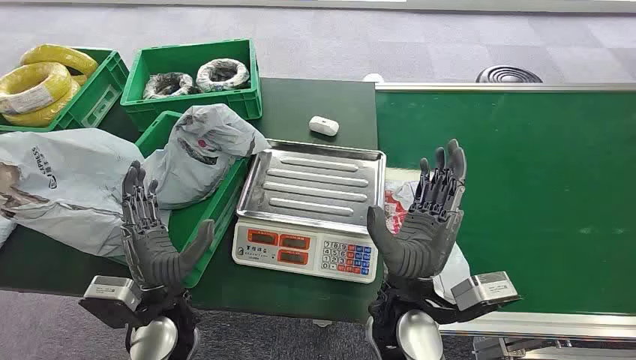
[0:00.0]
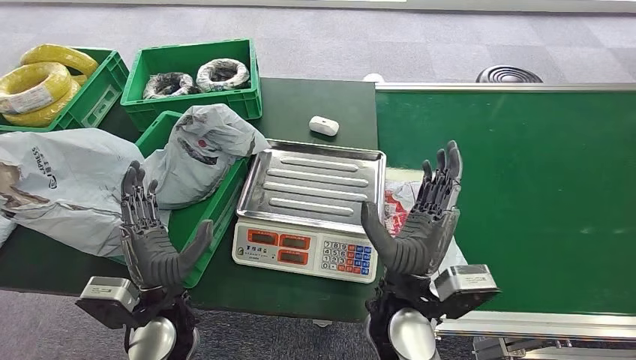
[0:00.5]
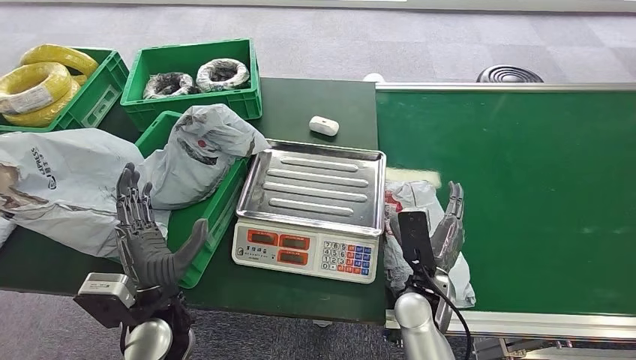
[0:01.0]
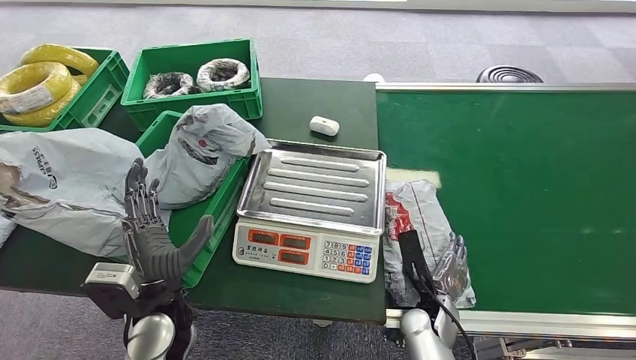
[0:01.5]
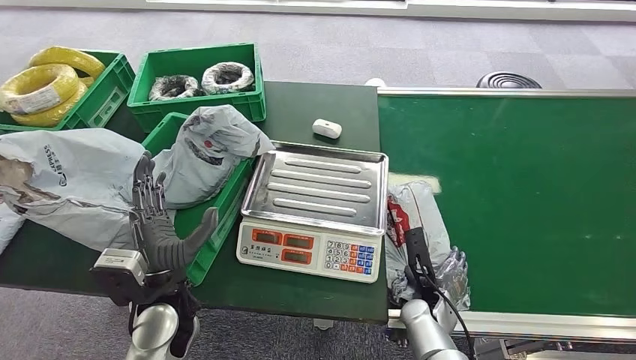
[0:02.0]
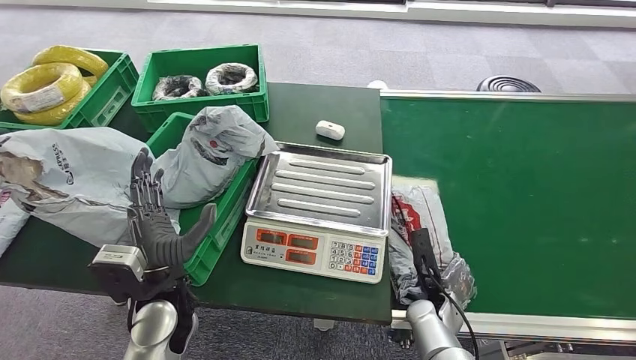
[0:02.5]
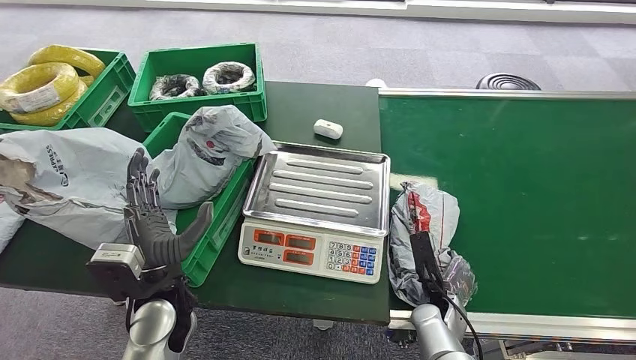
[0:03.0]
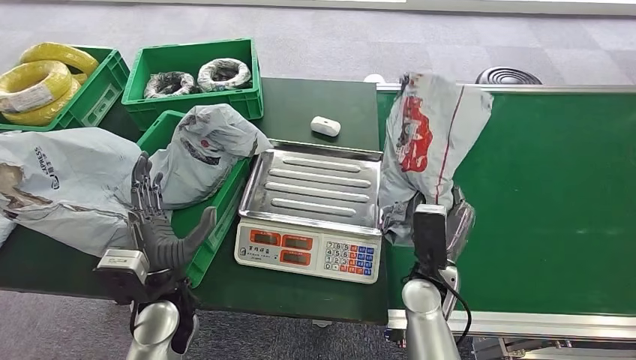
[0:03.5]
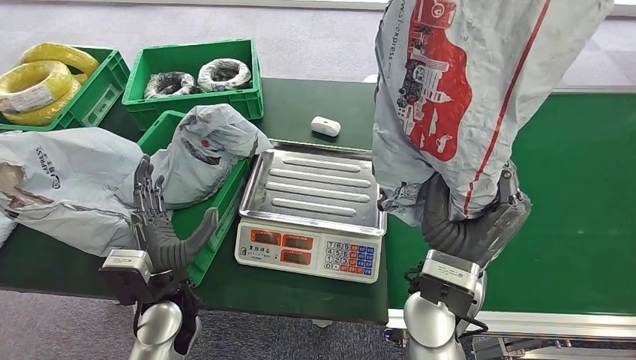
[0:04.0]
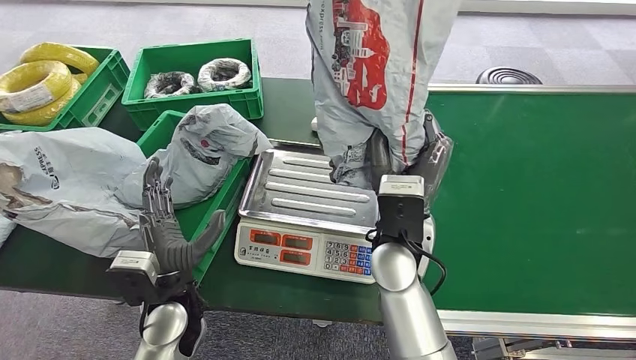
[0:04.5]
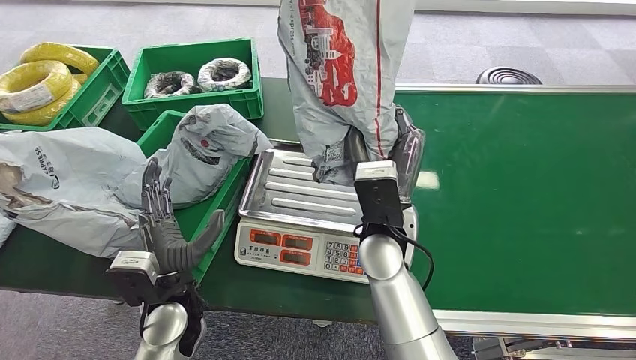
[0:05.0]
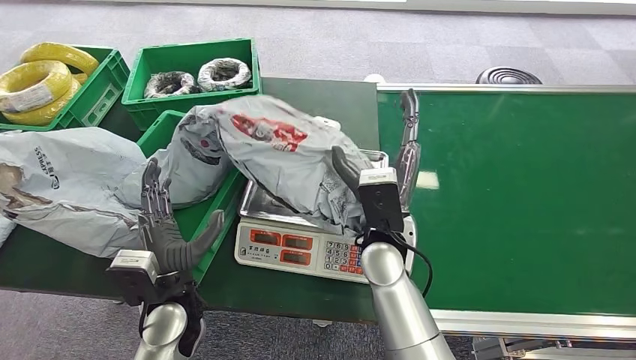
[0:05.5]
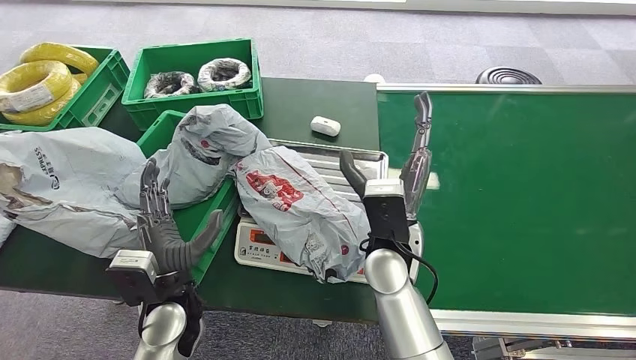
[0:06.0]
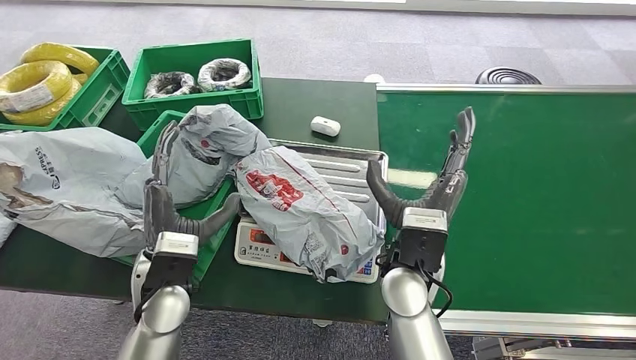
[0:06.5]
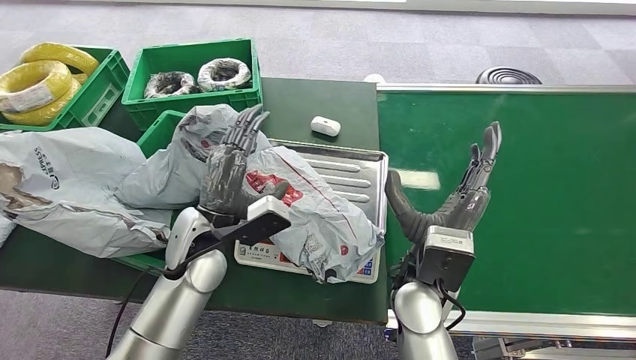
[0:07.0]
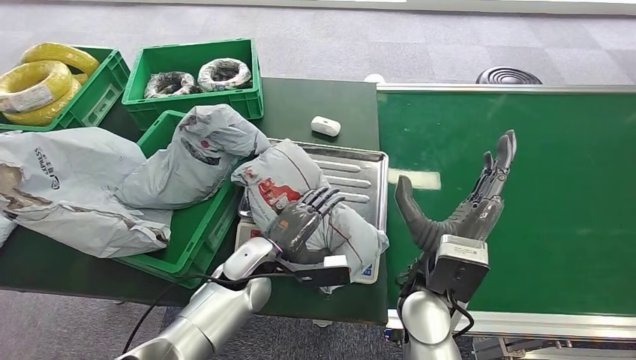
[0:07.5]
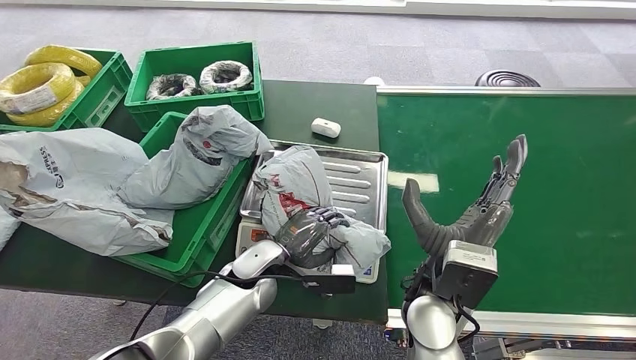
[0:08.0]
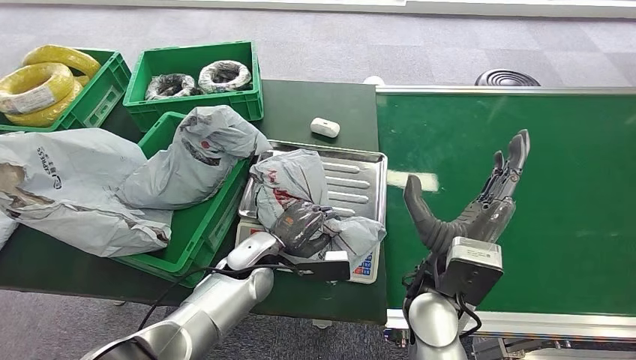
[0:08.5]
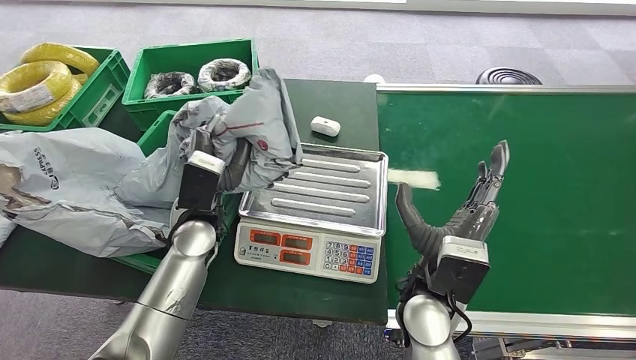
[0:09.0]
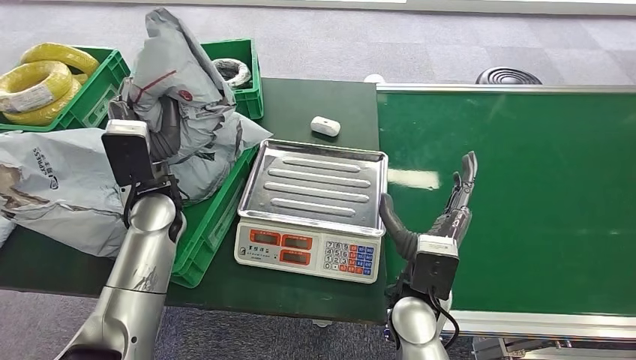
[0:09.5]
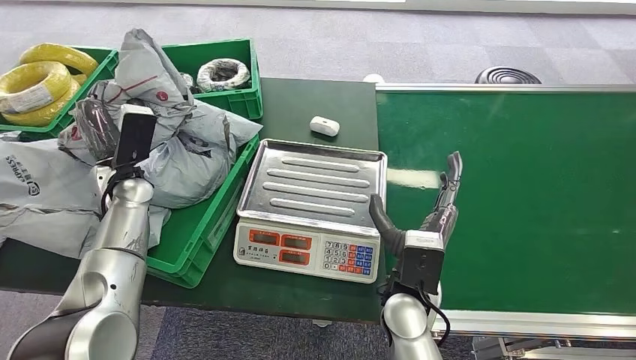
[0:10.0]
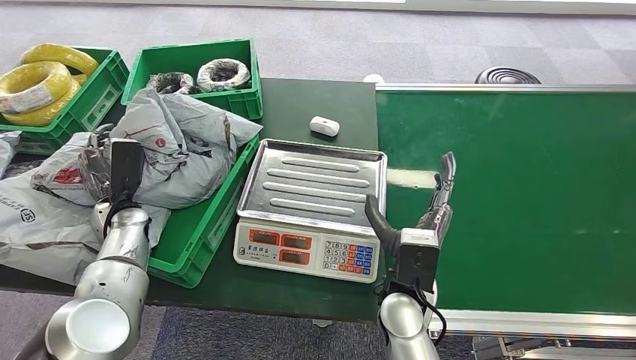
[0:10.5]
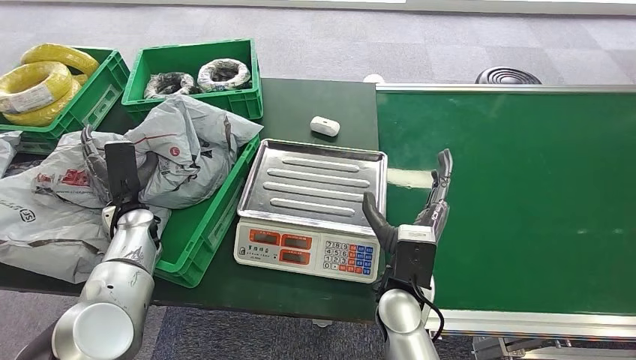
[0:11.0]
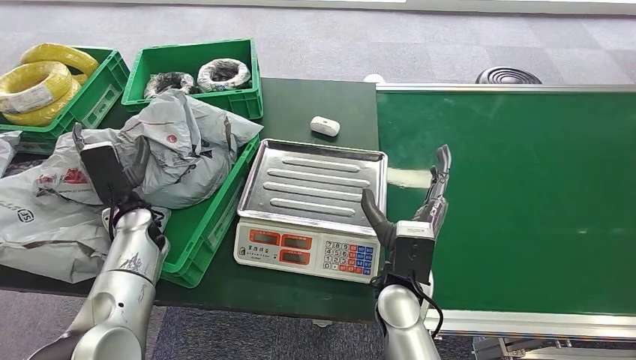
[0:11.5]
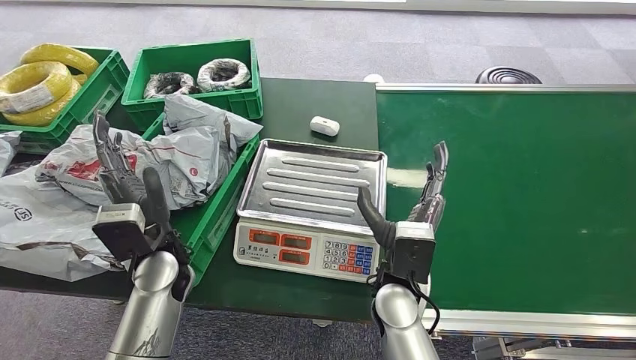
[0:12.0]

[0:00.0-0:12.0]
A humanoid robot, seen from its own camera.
Step, 0:00.0 to 0:03.5: Pick up the package from the conveyor belt.
Step, 0:04.0 to 0:06.0: Place the package onto the inbound machine.
Step, 0:06.5 to 0:09.0: Pick up the package from the inbound machine.
Step, 0:09.5 to 0:12.0: Place the package into the parcel locker.
